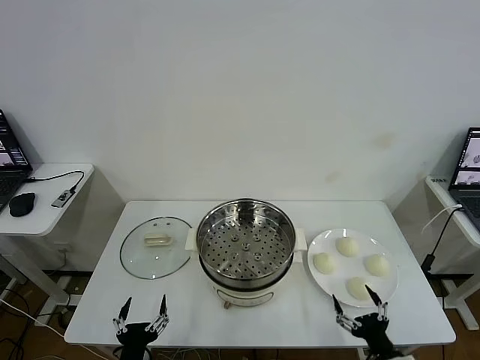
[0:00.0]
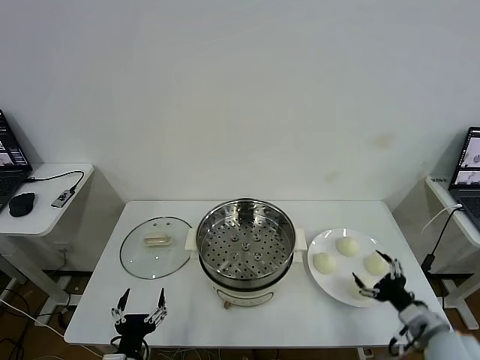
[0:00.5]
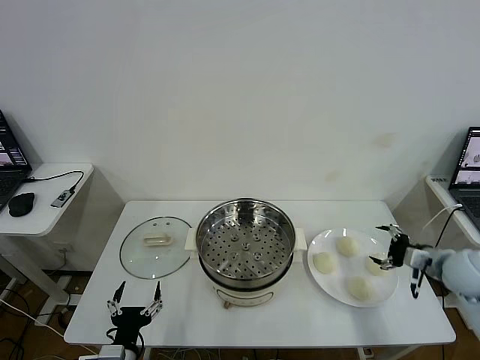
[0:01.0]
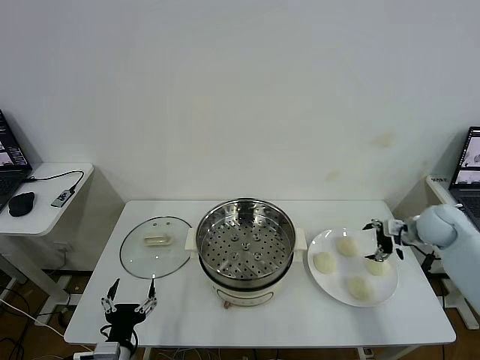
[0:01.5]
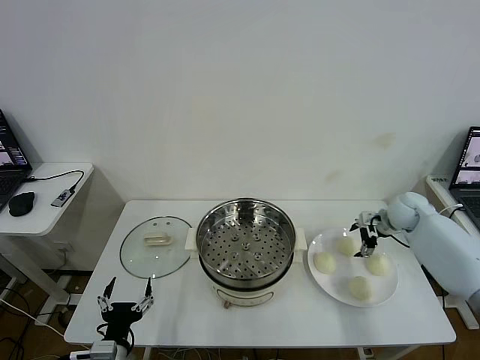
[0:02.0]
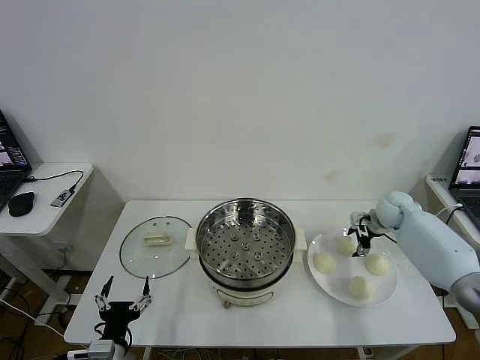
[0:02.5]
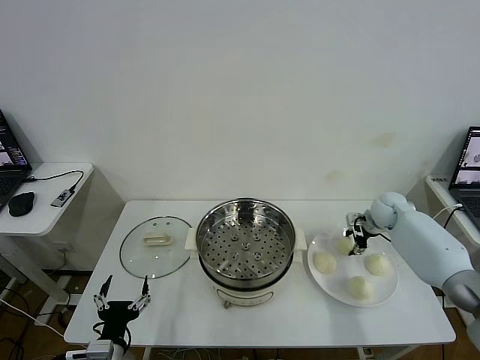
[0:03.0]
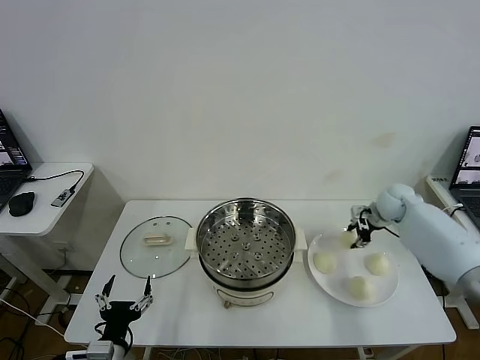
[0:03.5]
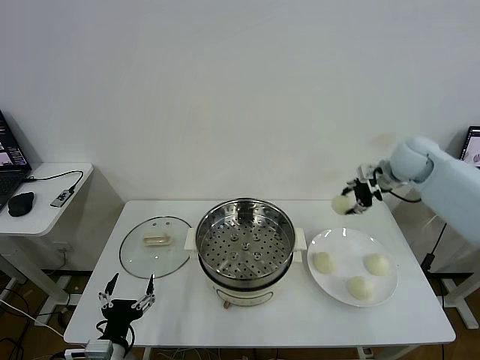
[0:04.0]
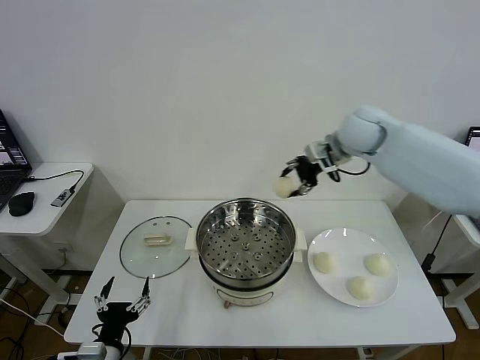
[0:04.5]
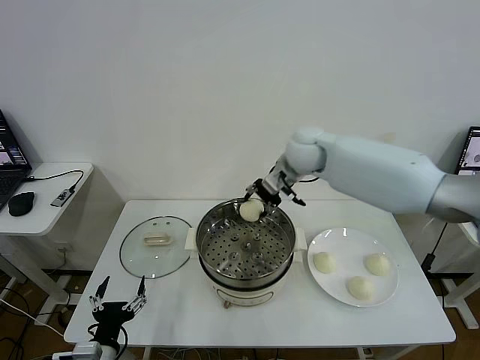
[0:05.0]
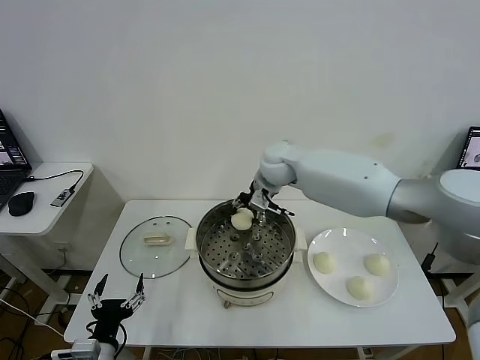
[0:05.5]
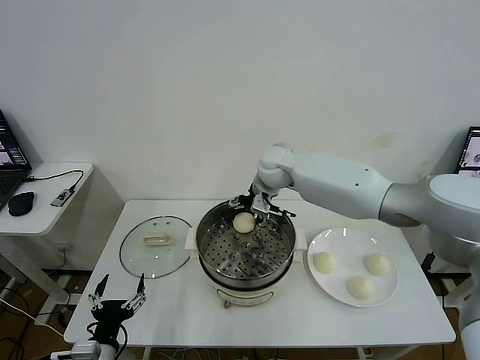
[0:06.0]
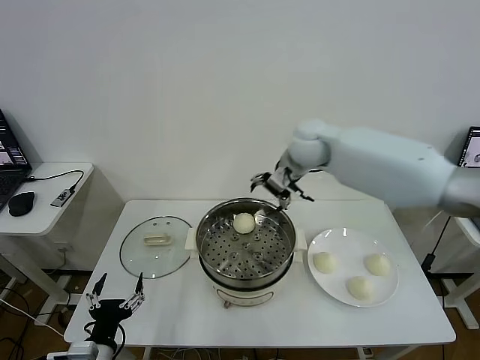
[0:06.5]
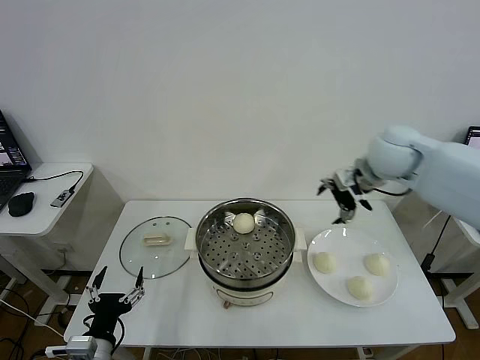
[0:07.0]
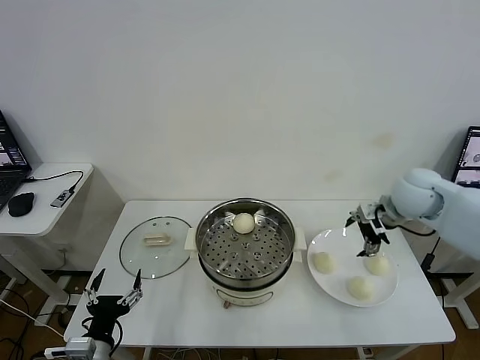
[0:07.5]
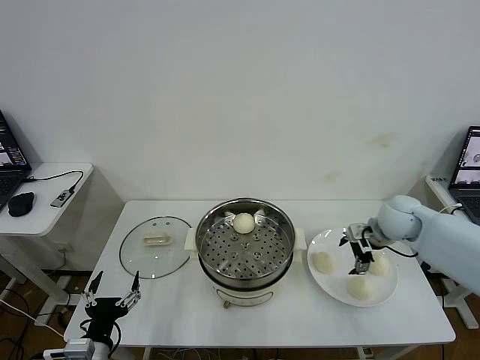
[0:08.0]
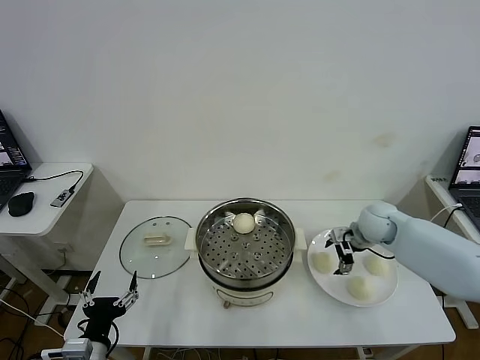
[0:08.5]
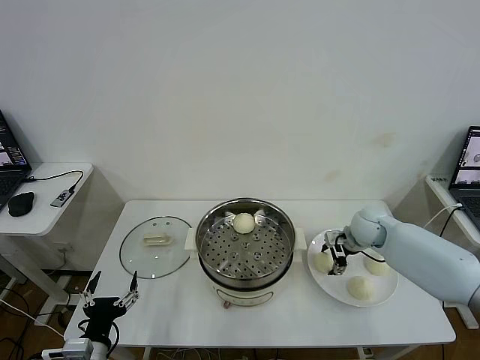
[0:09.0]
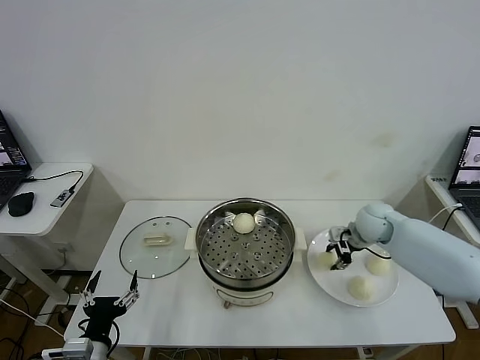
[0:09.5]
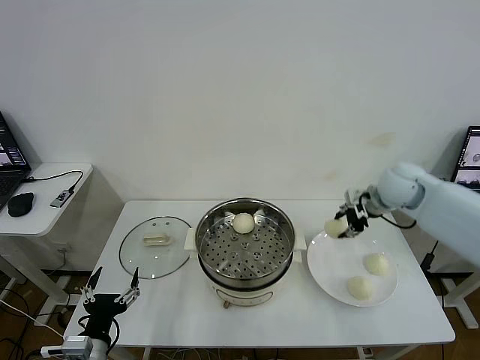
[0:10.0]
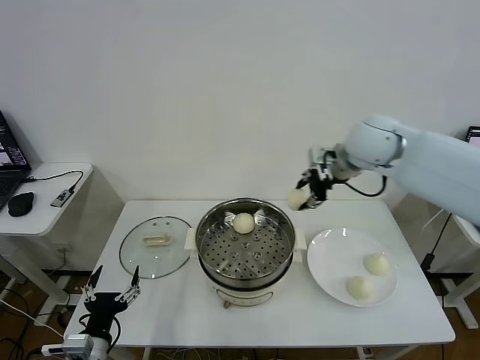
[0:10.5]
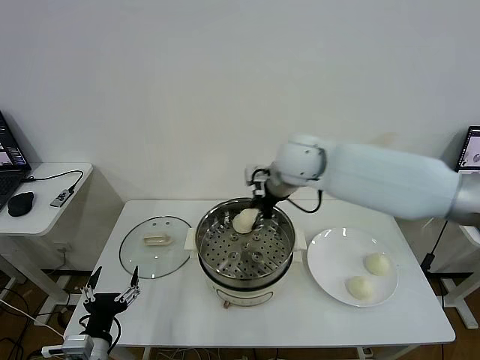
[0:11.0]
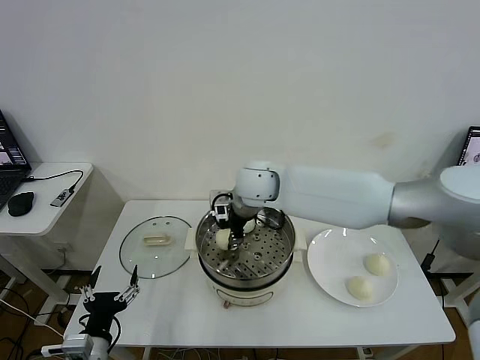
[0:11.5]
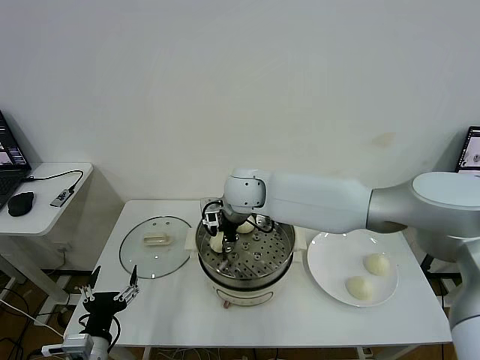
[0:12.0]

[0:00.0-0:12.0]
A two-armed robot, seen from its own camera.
Task of the whole recording: take steamed baozi put them in steamer then cover it.
Step, 0:00.0 to 0:02.5: Grasp the baozi in the plate with right gripper.
Step, 0:03.0 to 0:06.0: Place the baozi on the steamer with right gripper.
Step, 0:06.5 to 0:09.0: Grasp the baozi in the plate with right gripper.
0:02.0 to 0:04.0: The right gripper goes roughly 20 cm upward, and closes.
0:04.0 to 0:06.0: The right gripper heads to the left, covering approximately 25 cm, and opens.
0:06.0 to 0:08.0: The right gripper travels to the right by approximately 25 cm.
0:08.0 to 0:10.0: The right gripper moves upward, approximately 10 cm, and closes its fingers.
0:10.0 to 0:12.0: The right gripper moves to the left, approximately 35 cm.

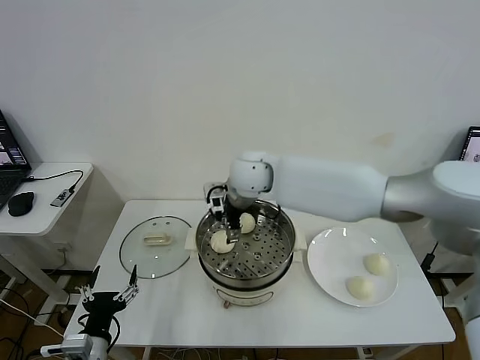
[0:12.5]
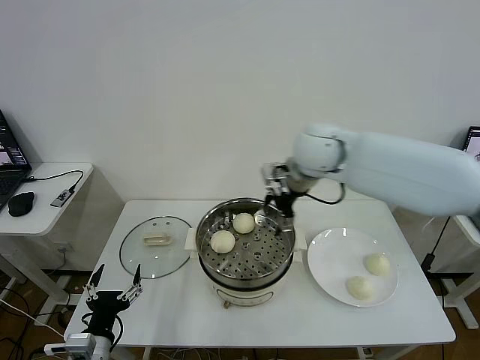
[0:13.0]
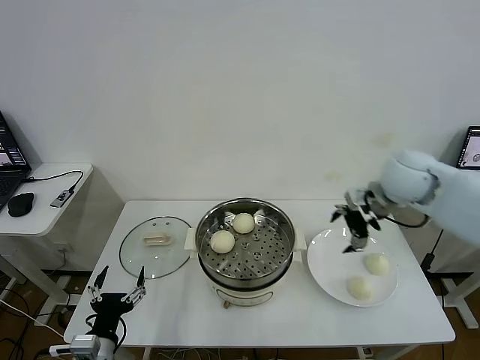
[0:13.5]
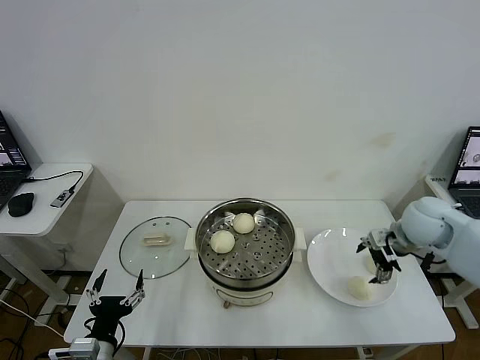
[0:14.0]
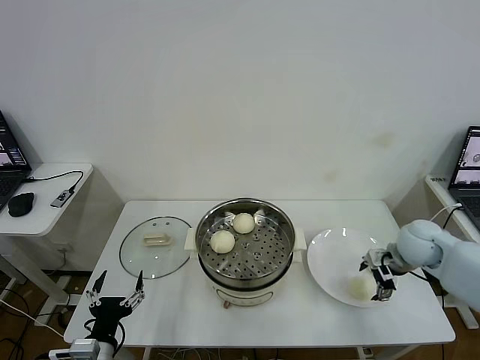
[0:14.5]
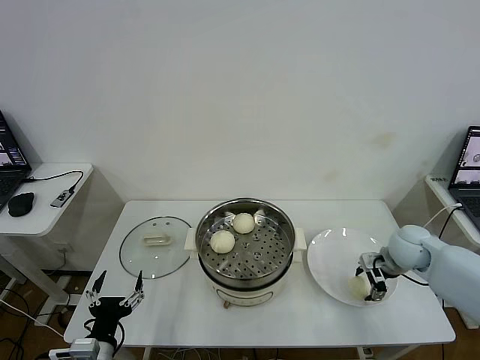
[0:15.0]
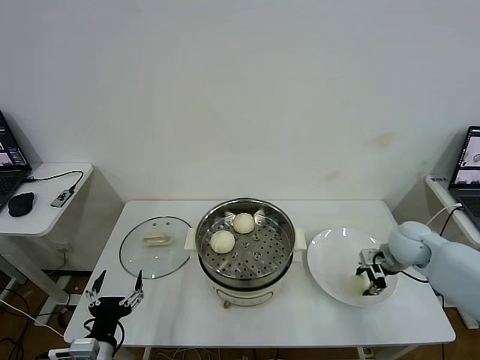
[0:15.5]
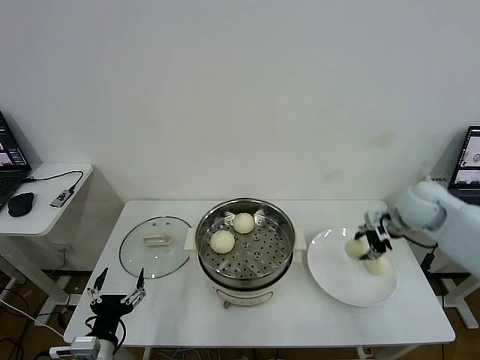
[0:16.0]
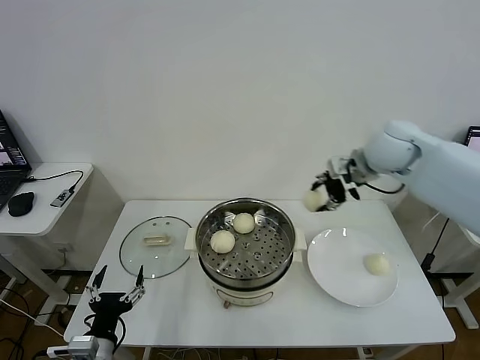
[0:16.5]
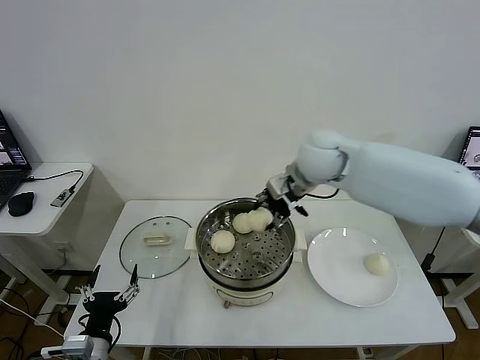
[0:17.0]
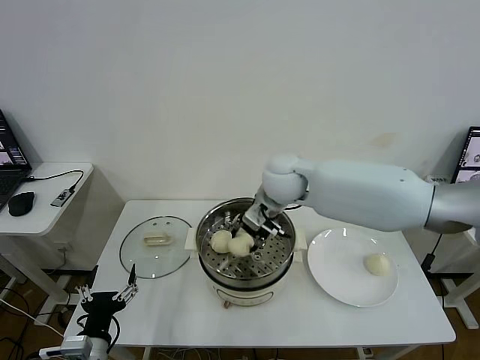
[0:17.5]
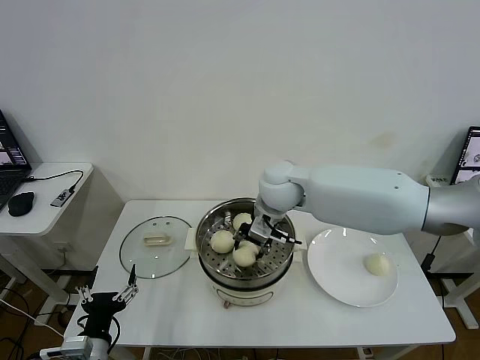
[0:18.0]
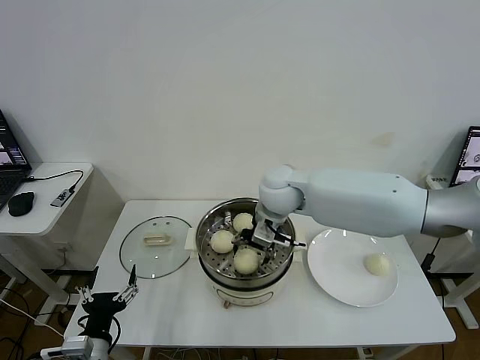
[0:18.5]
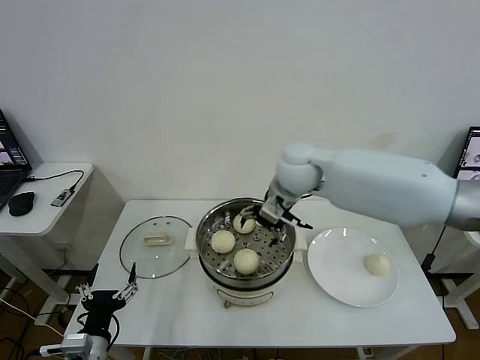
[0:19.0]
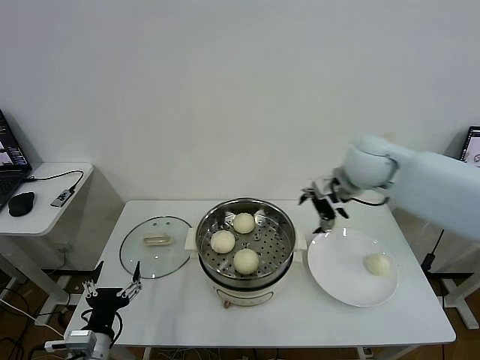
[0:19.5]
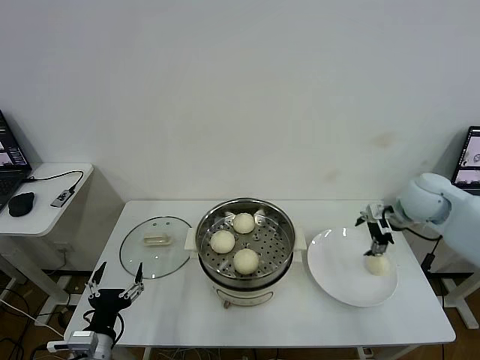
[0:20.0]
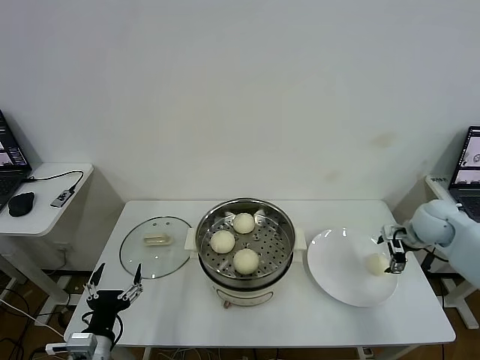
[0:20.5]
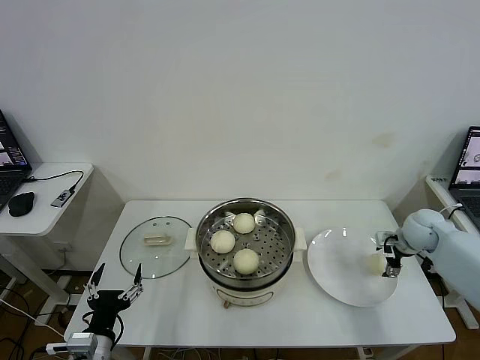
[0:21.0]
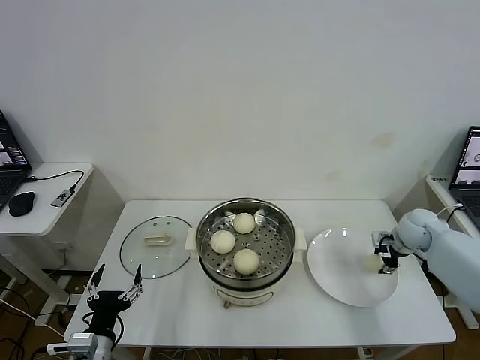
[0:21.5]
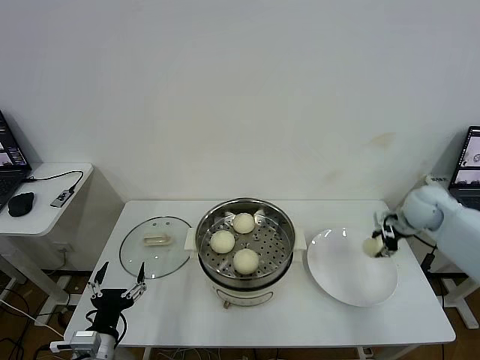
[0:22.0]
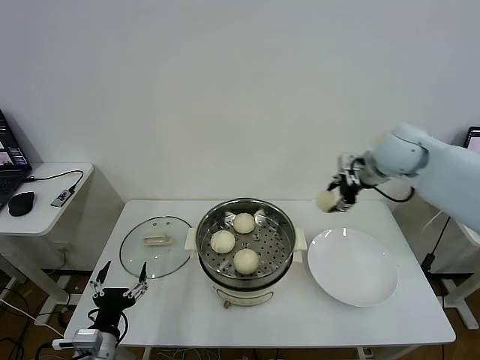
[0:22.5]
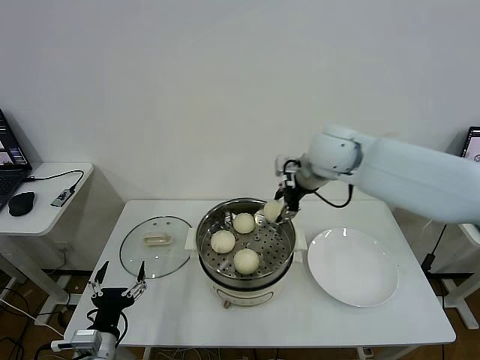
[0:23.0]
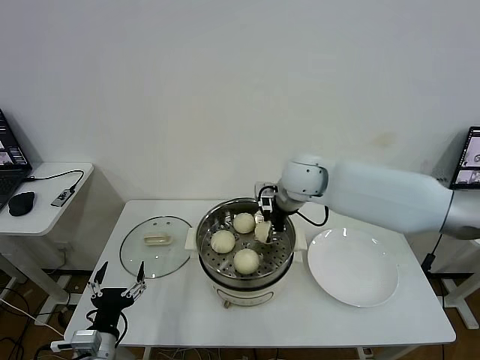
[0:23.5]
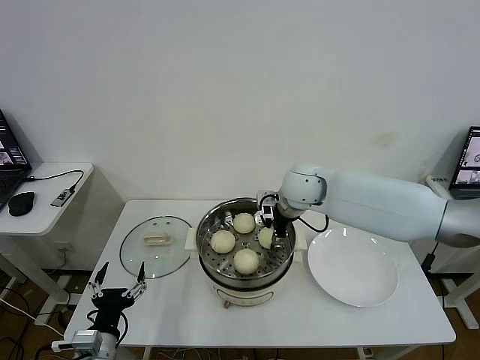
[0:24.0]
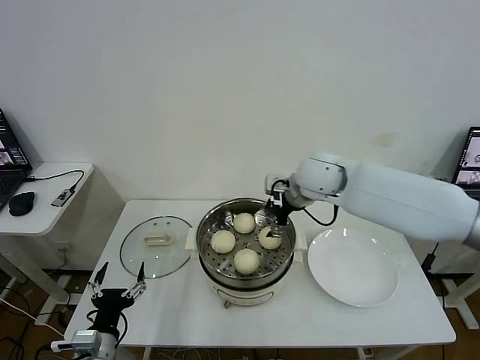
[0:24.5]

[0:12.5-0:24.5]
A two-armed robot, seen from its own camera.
Task of the whole recording: take steamed baozi put them in steamer then cover it.
Step, 0:12.5 to 0:15.0: Grasp the baozi in the plate with right gripper.
Step, 0:15.5 to 0:18.5: Place the baozi on the steamer with right gripper.
Step, 0:19.0 to 0:21.0: Grasp the baozi in the plate with right gripper.
Step, 0:21.5 to 0:24.0: Place the baozi on the steamer with right gripper.
0:12.5 to 0:14.5: The right gripper is displaced to the right and downward by roughly 40 cm.
0:14.5 to 0:16.5: The right gripper shifts roughly 25 cm upward, to the left and forward, and closes.
0:16.5 to 0:18.5: The right gripper travels to the left and downward by approximately 20 cm, and opens its fingers.
0:18.5 to 0:20.5: The right gripper is displaced to the right by some 35 cm.
0:20.5 to 0:22.5: The right gripper travels upward and to the left by about 20 cm, and closes up.
0:22.5 to 0:24.5: The right gripper heads to the left, covering approximately 15 cm, and opens.

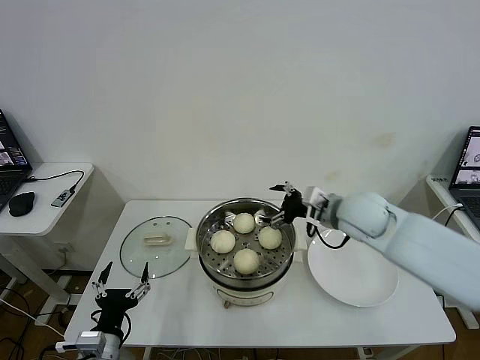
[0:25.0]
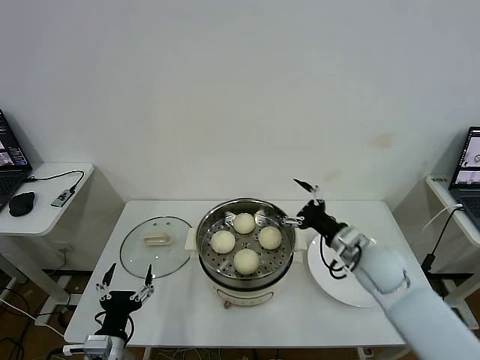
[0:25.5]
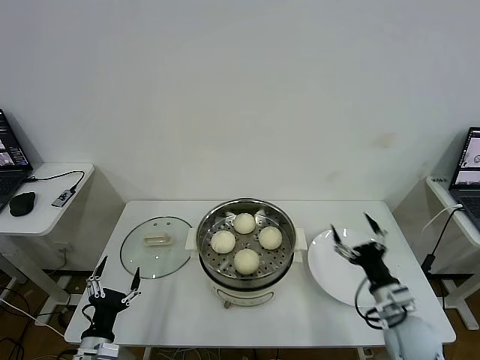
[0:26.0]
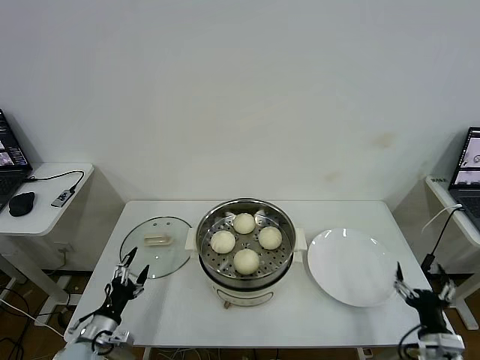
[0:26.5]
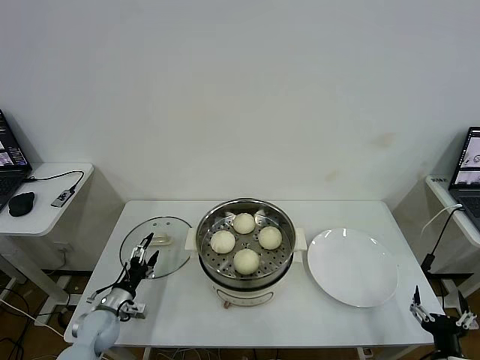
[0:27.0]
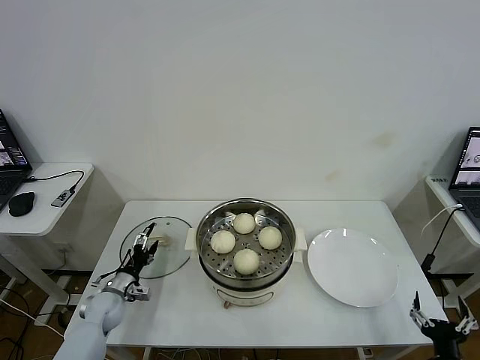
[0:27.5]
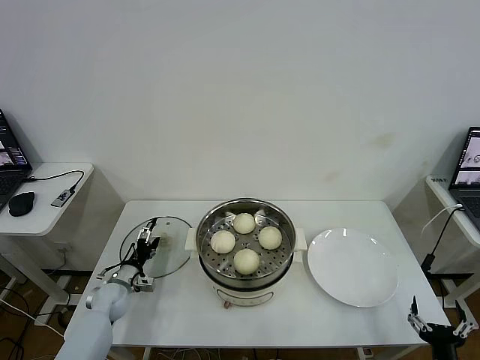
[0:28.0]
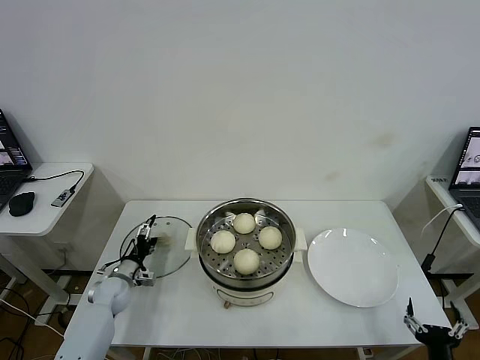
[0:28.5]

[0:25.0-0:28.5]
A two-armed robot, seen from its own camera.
Task of the whole recording: take steamed baozi put them in steamer then cover it.
0:25.0 to 0:27.0: The right gripper goes roughly 40 cm backward, downward and to the right, while the left gripper moves forward, downward and to the left, approximately 20 cm.
0:27.0 to 0:28.5: The left gripper goes roughly 10 cm forward.
